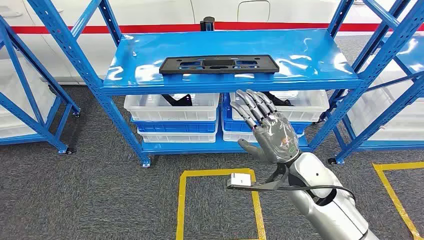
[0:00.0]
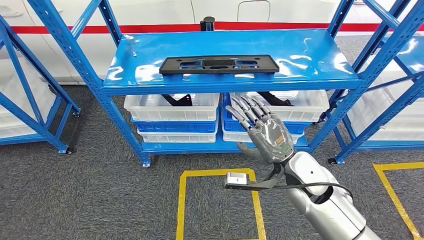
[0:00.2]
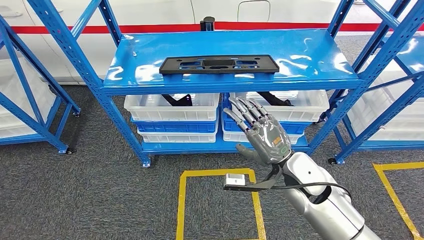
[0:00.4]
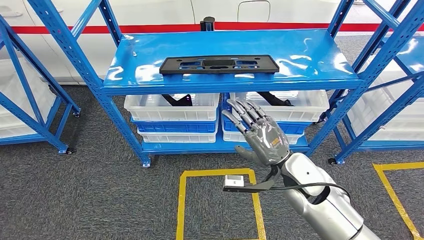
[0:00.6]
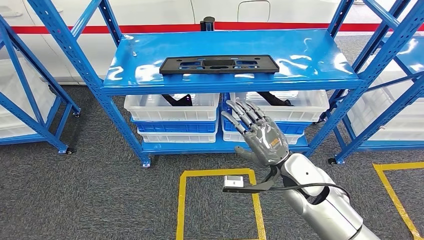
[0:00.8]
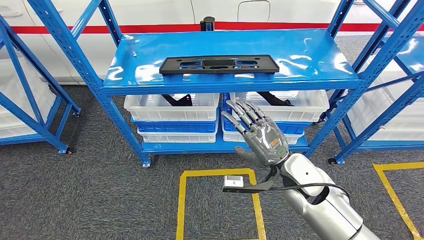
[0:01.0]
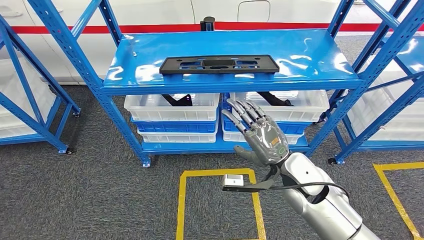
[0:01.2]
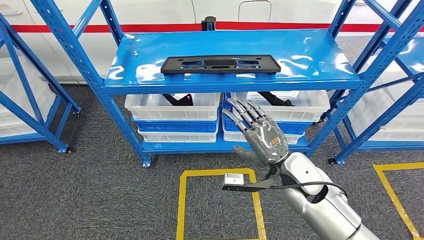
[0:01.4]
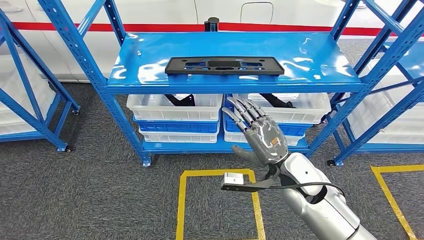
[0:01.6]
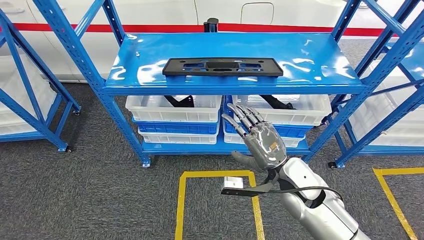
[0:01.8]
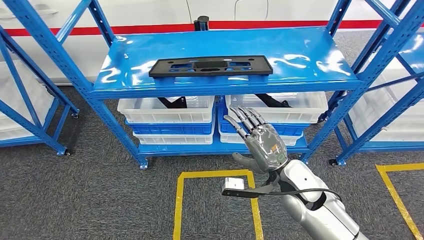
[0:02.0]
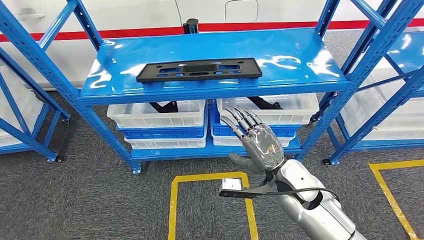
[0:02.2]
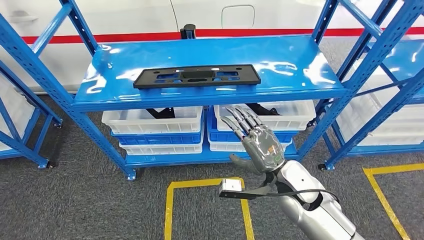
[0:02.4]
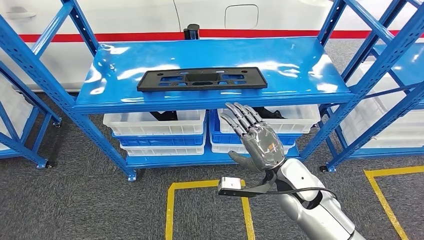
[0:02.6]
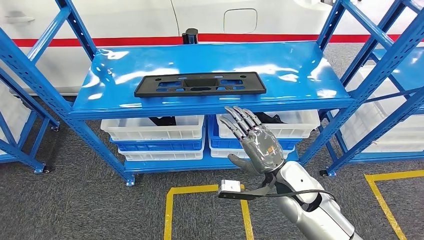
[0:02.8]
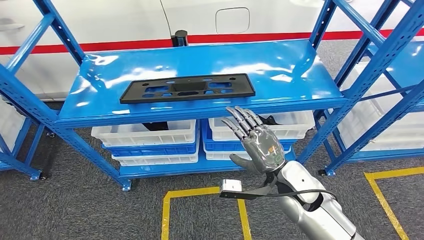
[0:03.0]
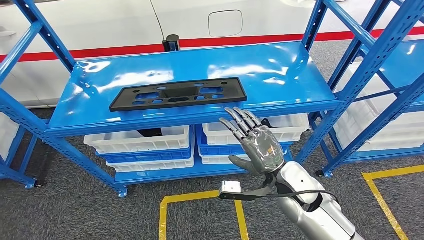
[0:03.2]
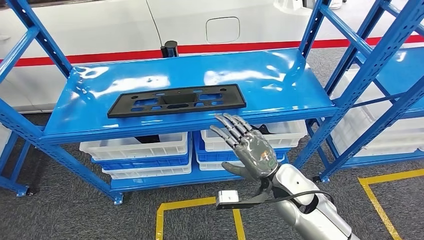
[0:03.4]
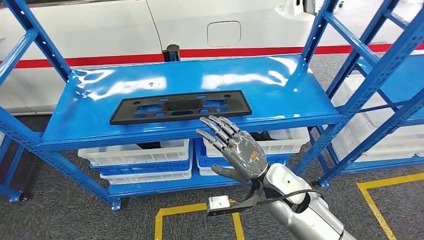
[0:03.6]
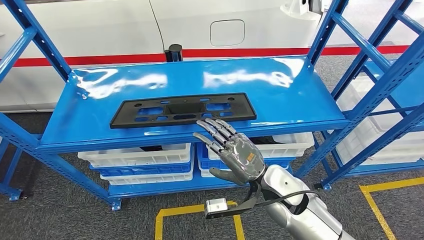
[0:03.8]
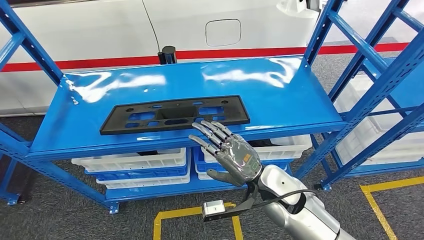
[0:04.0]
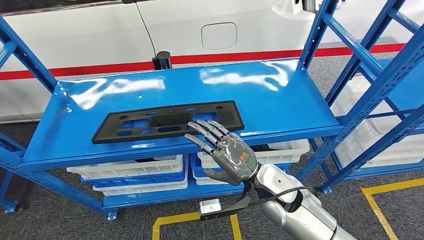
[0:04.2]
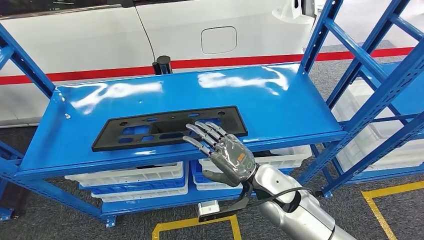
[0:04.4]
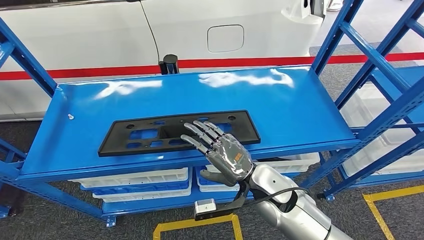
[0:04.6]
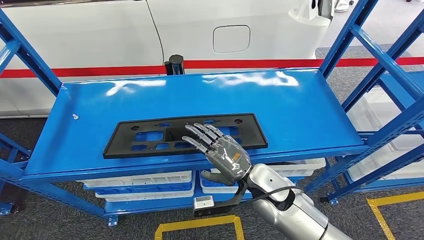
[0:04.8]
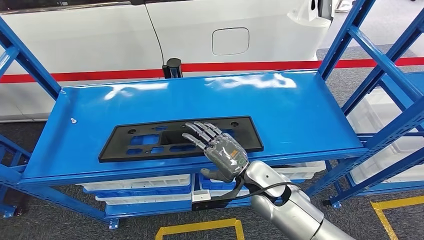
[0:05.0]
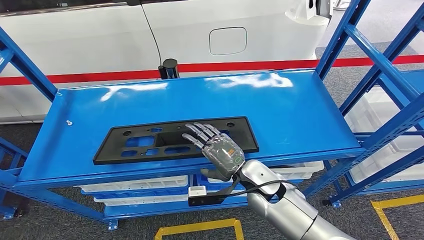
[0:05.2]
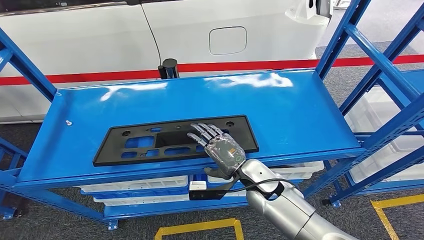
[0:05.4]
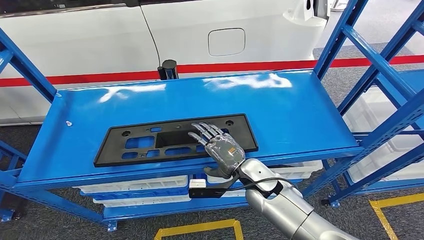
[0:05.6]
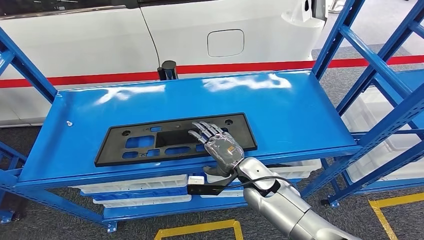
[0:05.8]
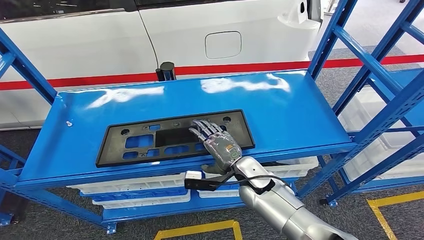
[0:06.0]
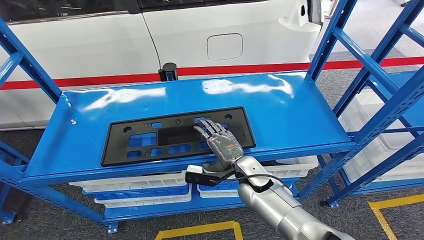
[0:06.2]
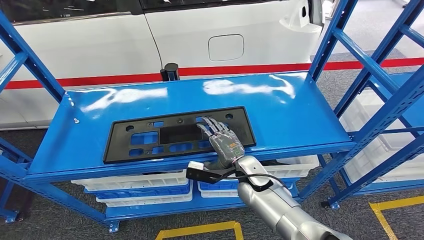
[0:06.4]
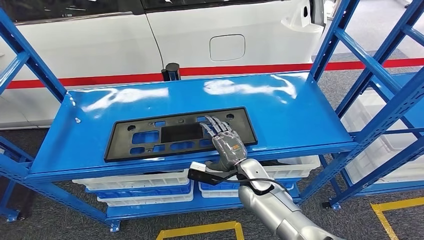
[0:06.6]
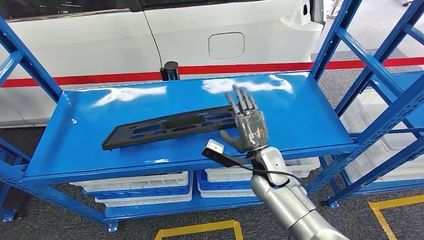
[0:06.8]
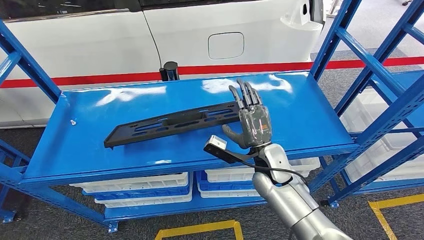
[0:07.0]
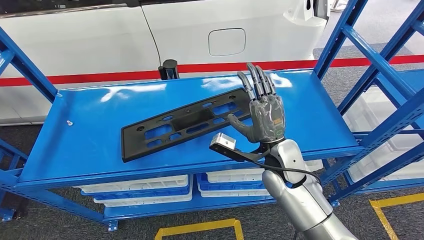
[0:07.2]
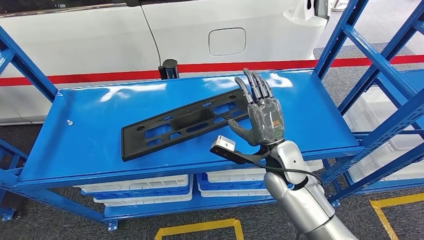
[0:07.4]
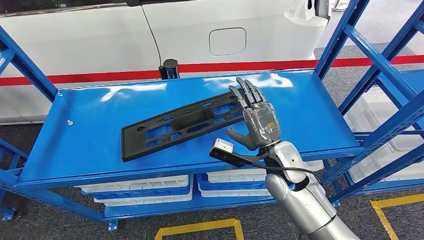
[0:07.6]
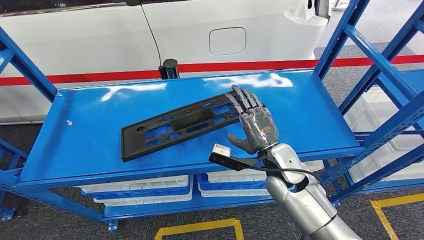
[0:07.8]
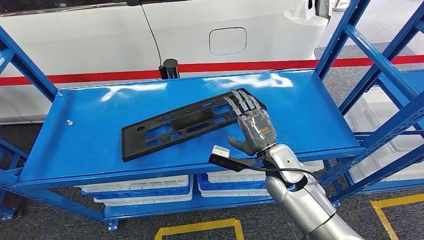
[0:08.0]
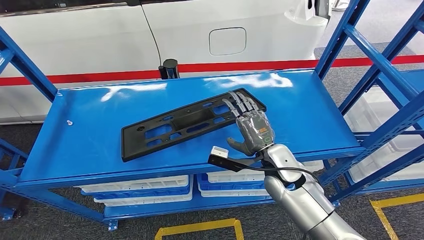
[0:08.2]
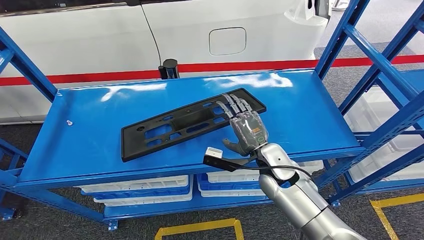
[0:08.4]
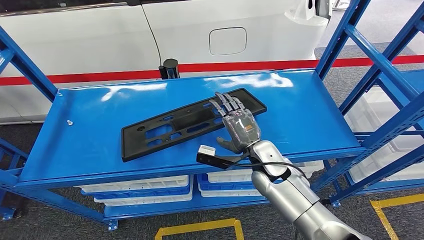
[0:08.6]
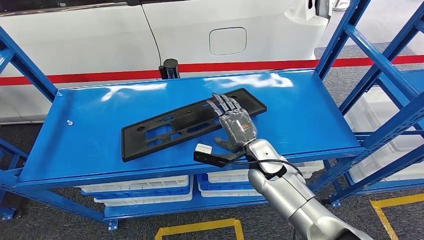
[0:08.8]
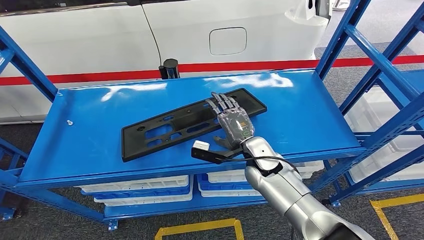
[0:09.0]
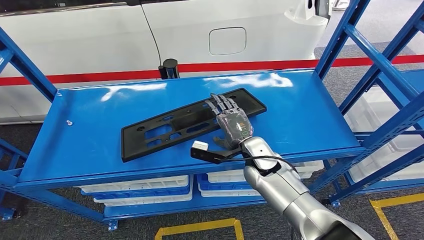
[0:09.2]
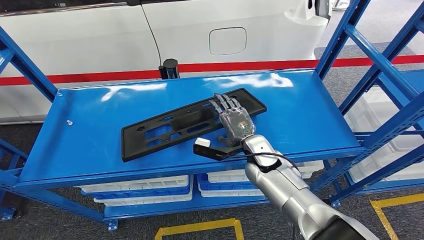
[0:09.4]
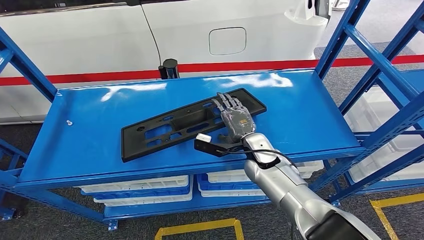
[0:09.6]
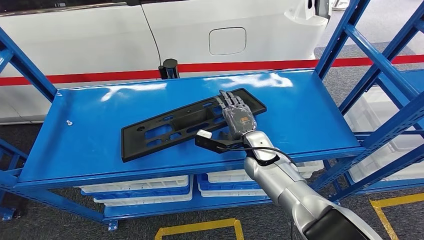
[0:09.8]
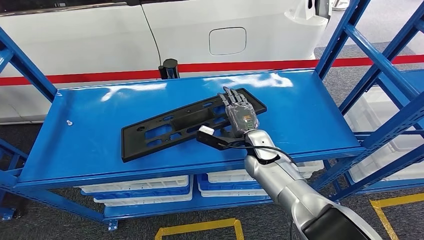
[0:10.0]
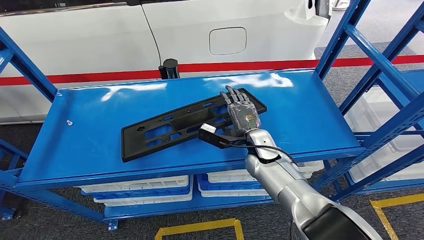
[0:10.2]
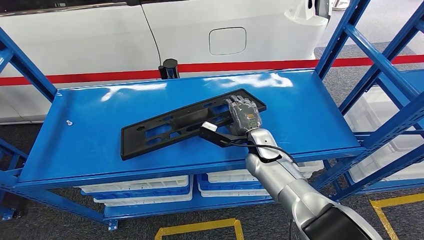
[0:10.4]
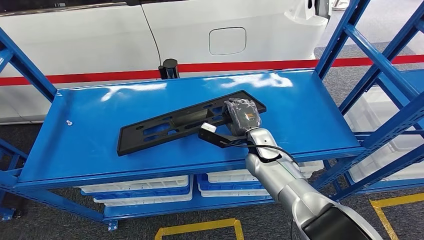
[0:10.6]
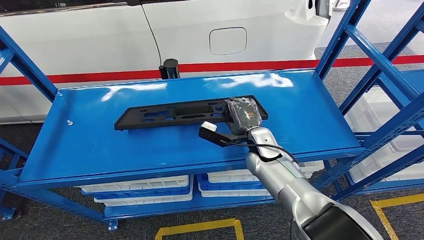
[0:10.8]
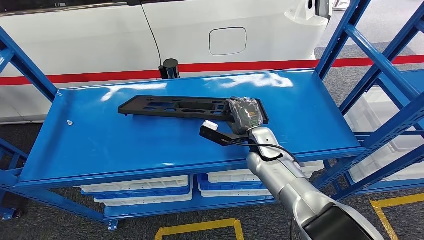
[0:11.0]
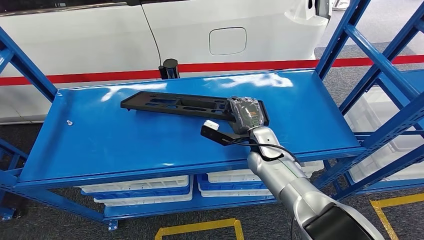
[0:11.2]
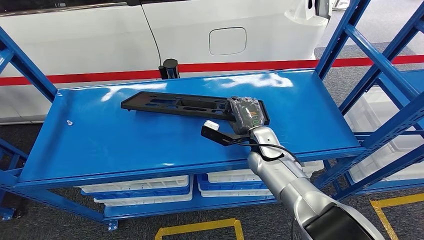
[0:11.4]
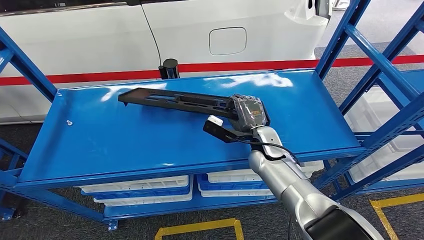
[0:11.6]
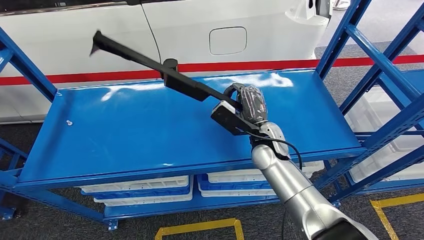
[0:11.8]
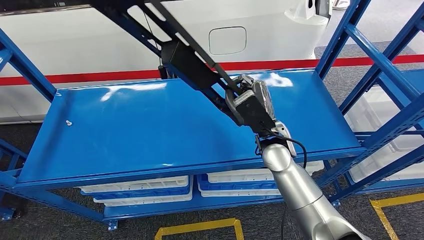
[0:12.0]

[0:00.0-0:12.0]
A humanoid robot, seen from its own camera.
0:07.6 to 0:09.0: The right hand ends up some 5 cm from where it was.
0:09.0 to 0:10.4: The hands move only a little.
0:10.4 to 0:12.0: The right hand shifts roughly 5 cm upward.

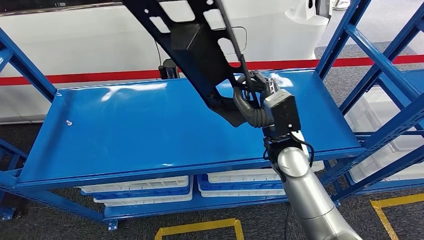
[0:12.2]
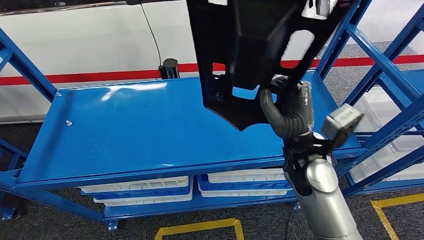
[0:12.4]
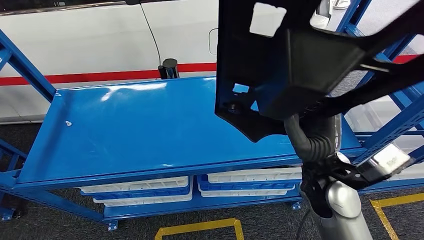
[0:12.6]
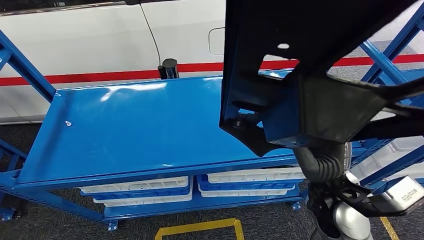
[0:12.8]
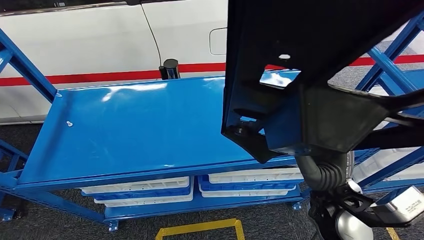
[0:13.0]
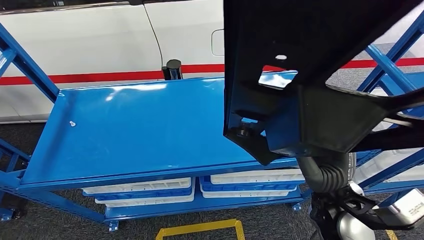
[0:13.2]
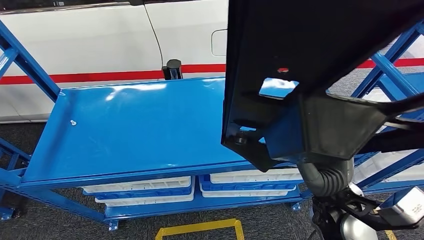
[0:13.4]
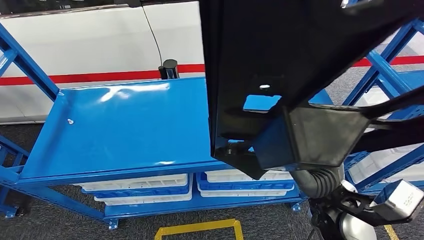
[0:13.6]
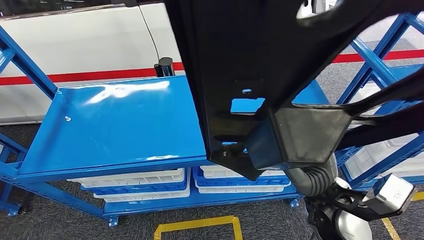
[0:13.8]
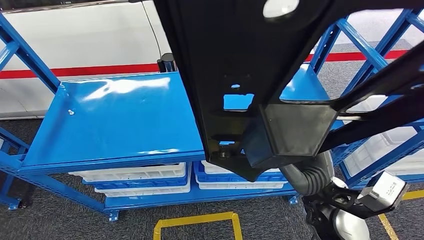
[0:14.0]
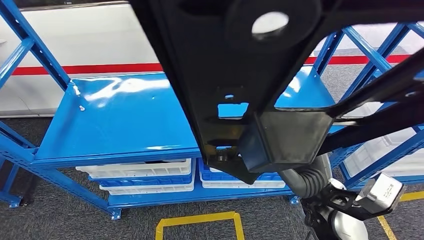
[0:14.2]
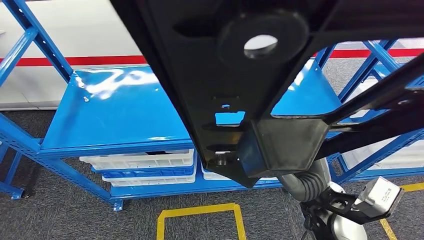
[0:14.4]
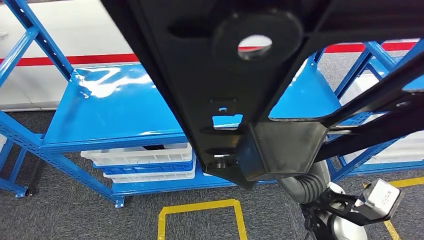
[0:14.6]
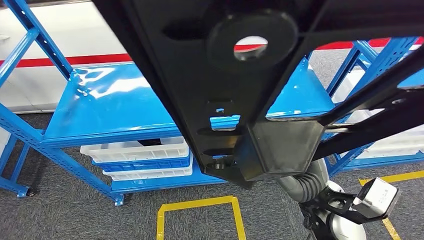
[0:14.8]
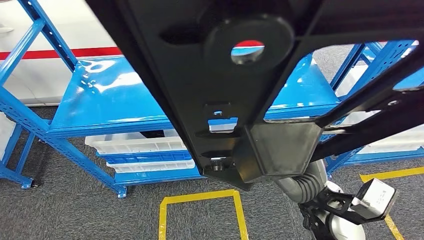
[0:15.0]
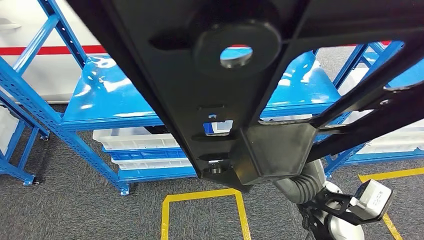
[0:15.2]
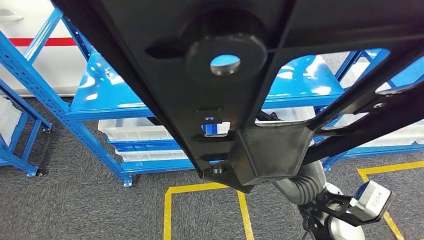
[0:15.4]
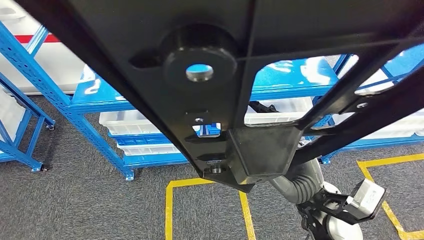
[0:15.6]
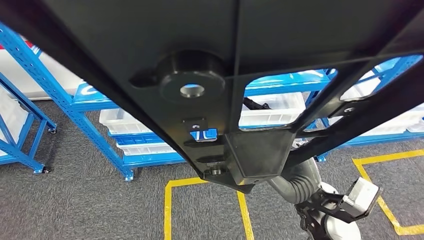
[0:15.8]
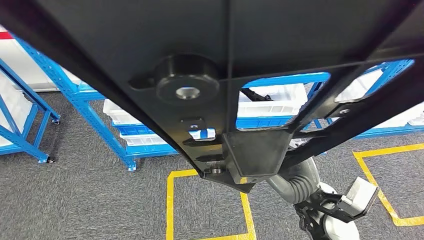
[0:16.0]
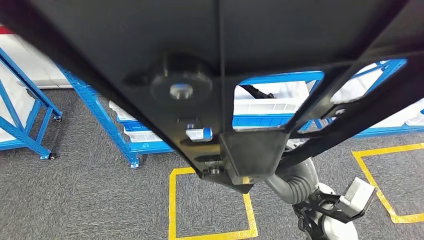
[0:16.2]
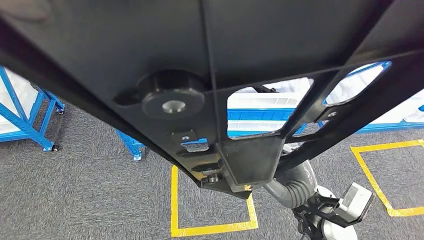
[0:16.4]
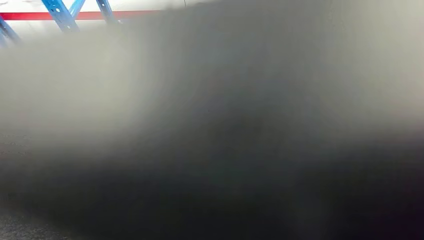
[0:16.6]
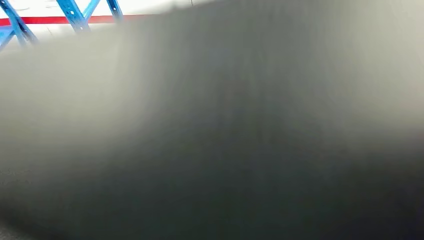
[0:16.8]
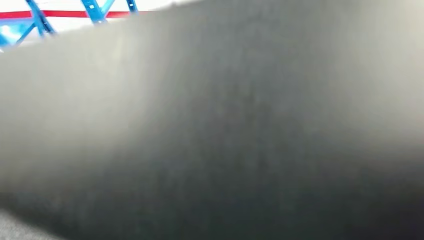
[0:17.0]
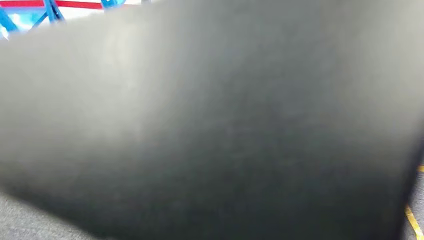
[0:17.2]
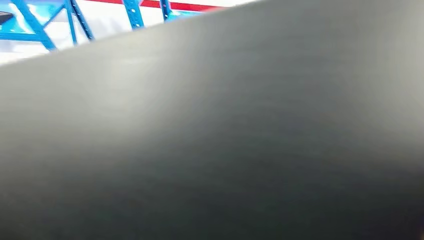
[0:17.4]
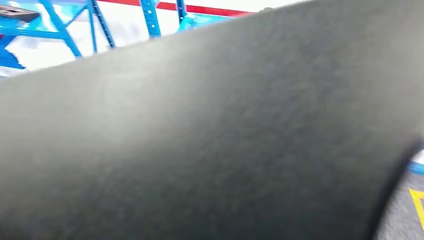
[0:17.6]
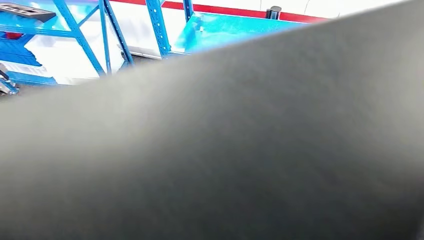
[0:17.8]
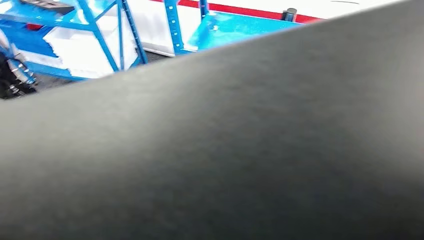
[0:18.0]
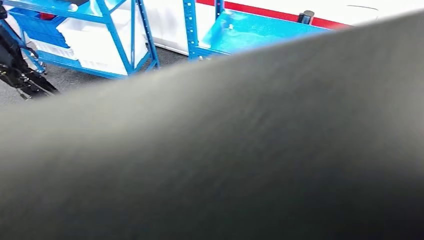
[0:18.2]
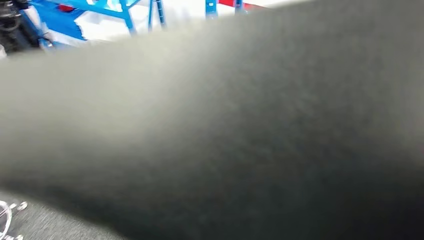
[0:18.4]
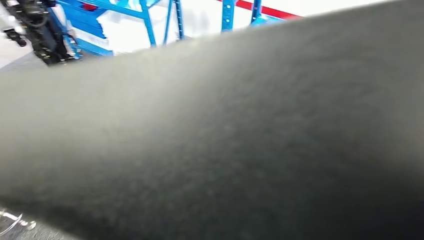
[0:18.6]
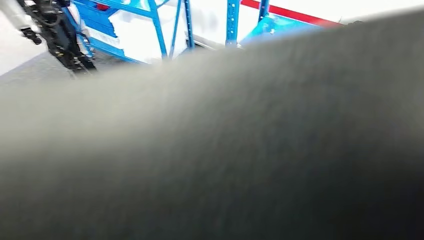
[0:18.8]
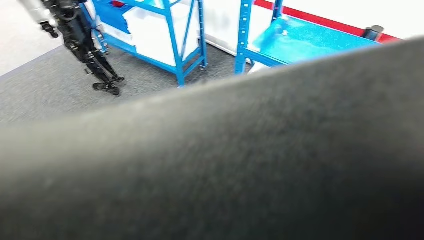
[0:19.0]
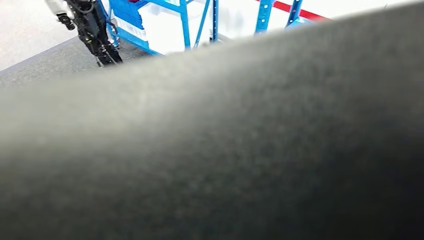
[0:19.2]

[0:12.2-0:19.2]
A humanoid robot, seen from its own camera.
Step, 0:12.2 to 0:15.8: Pick up the large material from the shelf.
